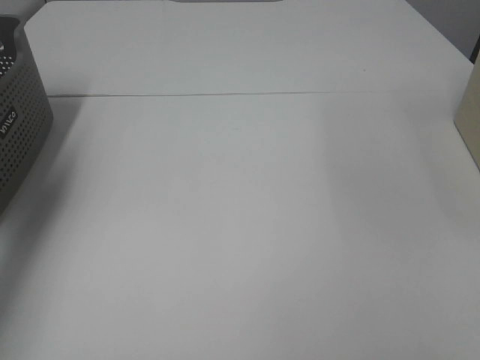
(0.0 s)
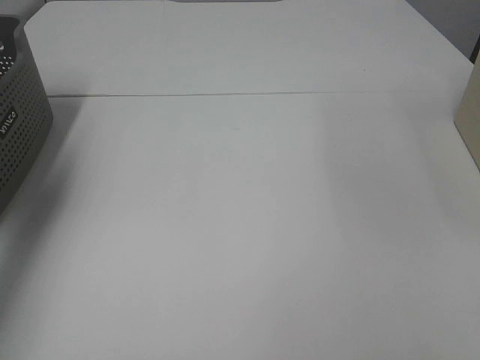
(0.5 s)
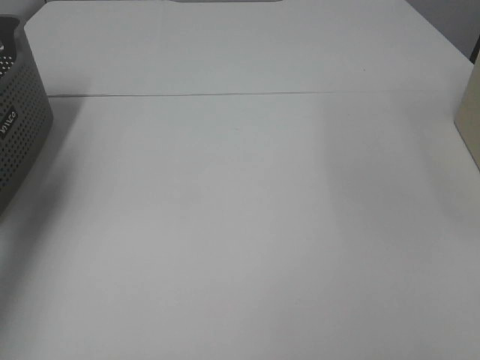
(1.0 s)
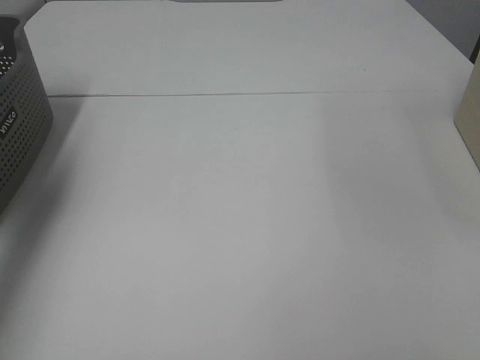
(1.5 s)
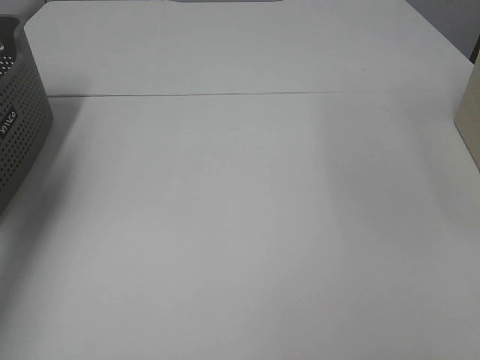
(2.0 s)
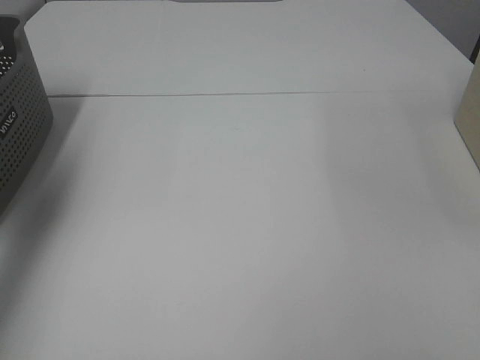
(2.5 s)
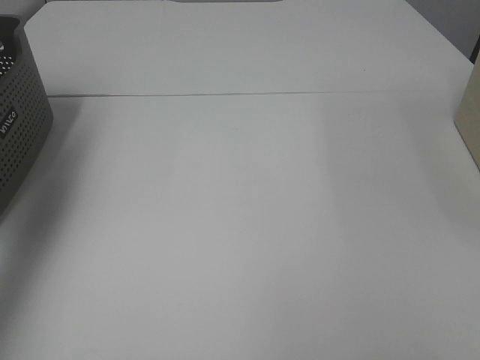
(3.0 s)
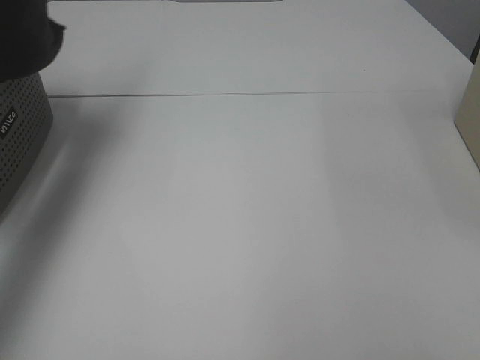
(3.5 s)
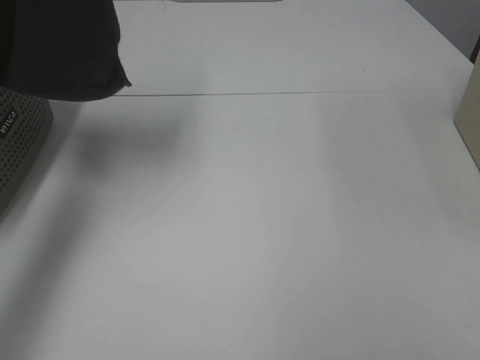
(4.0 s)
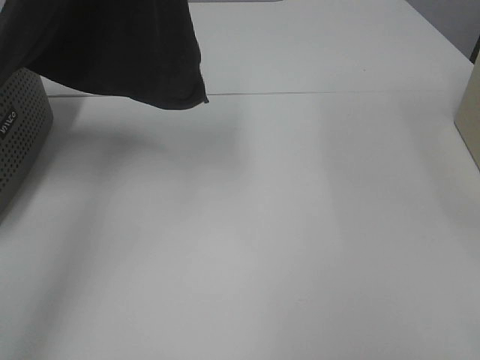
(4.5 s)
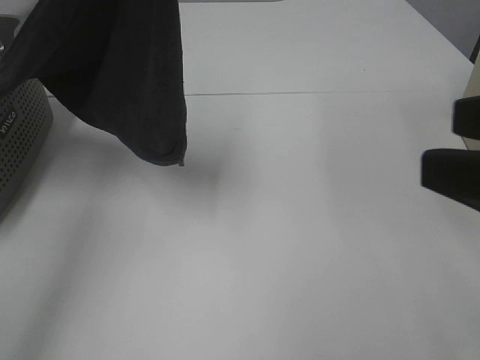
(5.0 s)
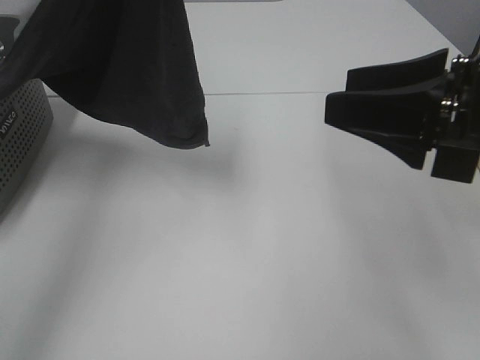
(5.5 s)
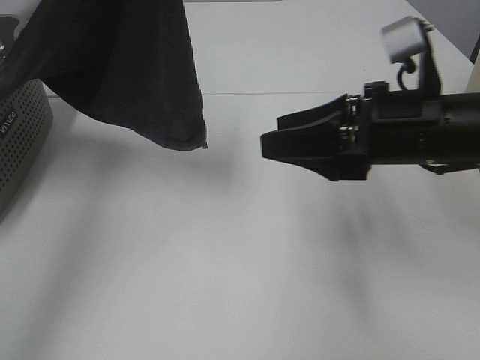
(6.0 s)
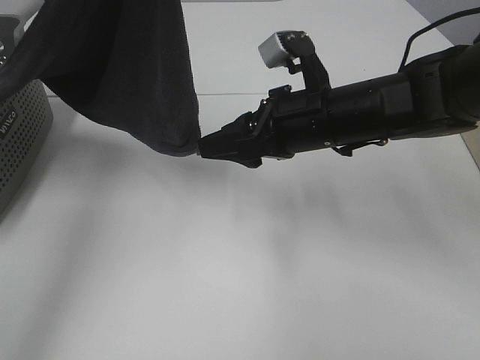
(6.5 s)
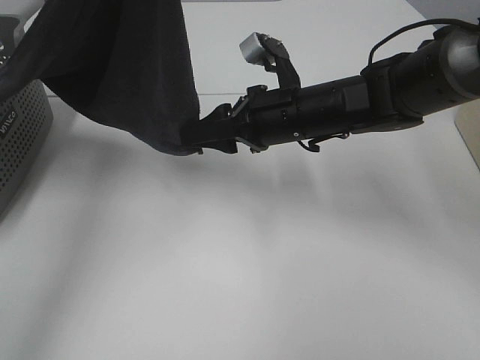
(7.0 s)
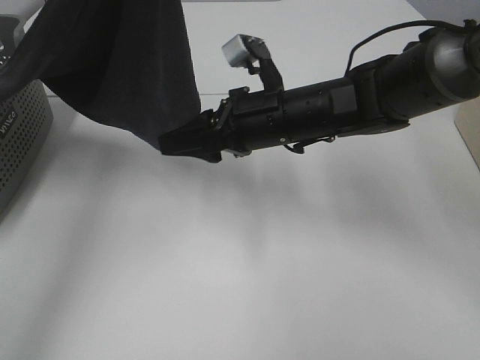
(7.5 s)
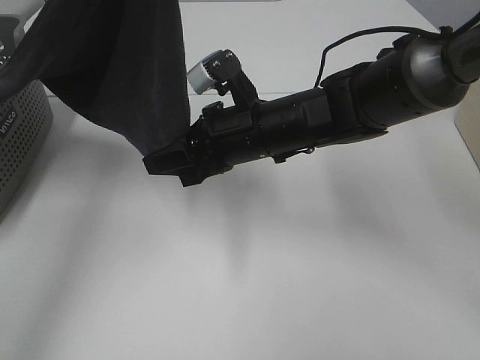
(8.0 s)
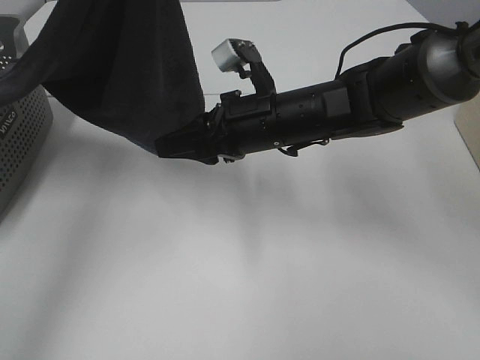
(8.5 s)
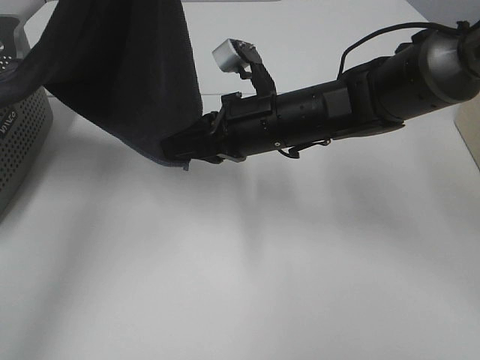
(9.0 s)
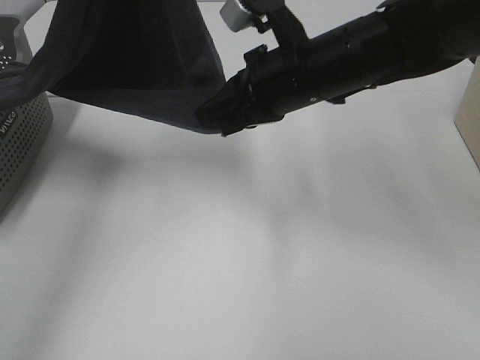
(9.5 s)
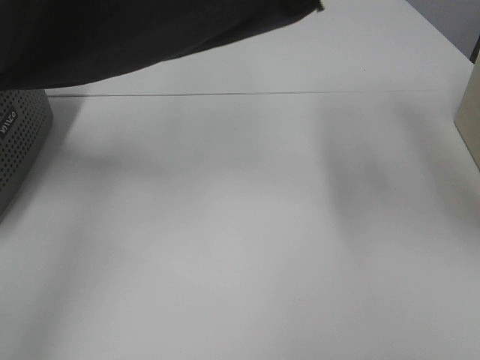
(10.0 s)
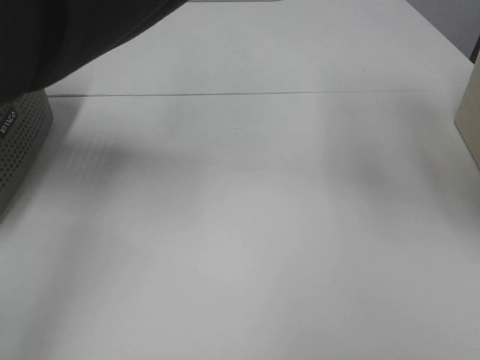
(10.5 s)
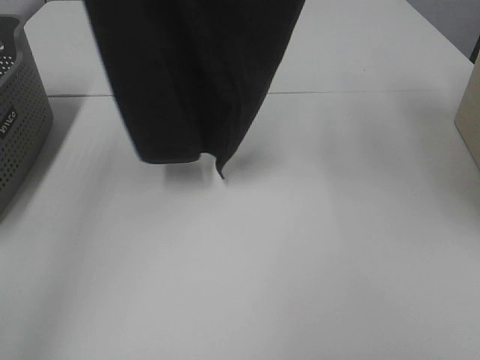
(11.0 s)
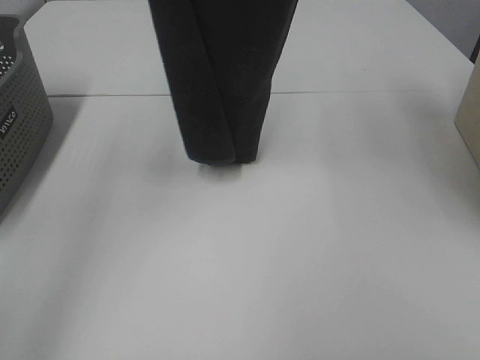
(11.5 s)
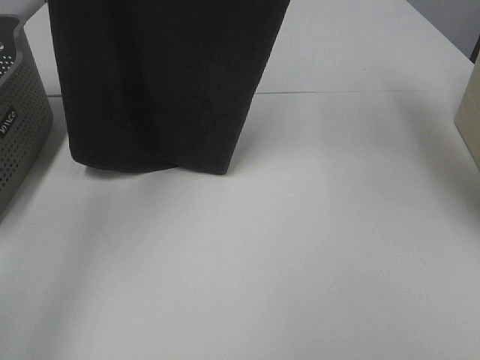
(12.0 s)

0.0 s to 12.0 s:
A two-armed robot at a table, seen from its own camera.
Task of the whole recording: Remove the towel and place it.
Step, 3.5 to 9.5 s: Right hand: grab a corner of the grey towel and straighten it.
2.0 to 4.0 s: The left gripper heads upward and to the right, covering some 25 cm.
4.0 to 6.0 s: The left gripper travels to the right by about 5 cm. Meanwhile the right gripper shifts roughly 30 cm forward and to the left.
6.0 to 8.0 s: The right gripper heads to the left and forward, covering some 15 cm.
8.0 to 10.0 s: The right gripper shifts about 25 cm upward, and closes, while the left gripper travels upward by approximately 10 cm.
10.0 to 12.0 s: The right gripper heads upward, covering about 15 cm; the left gripper moves forward, some 5 cm.

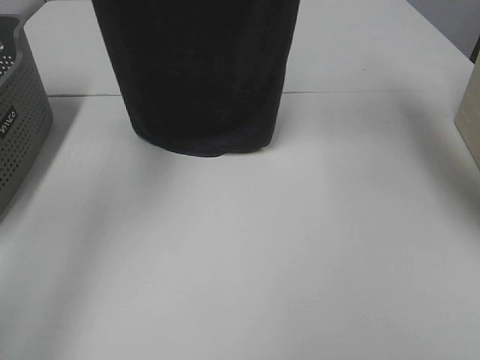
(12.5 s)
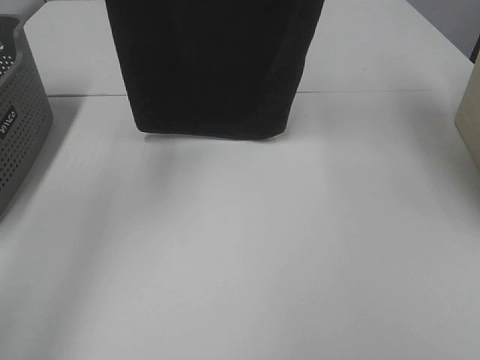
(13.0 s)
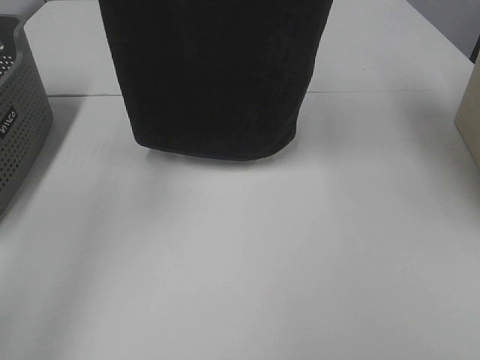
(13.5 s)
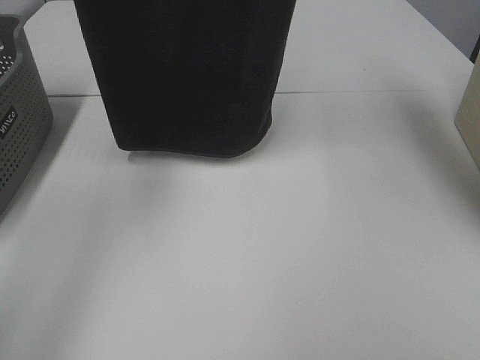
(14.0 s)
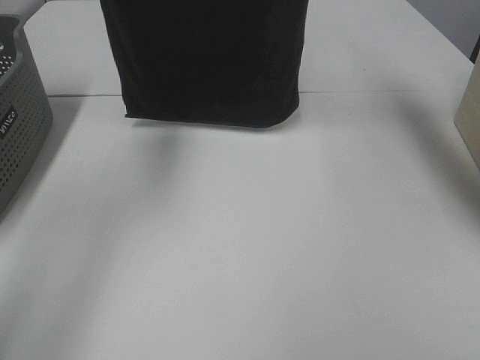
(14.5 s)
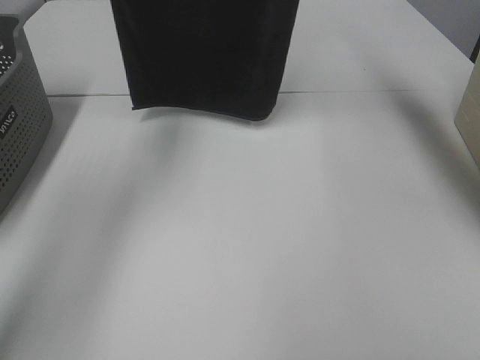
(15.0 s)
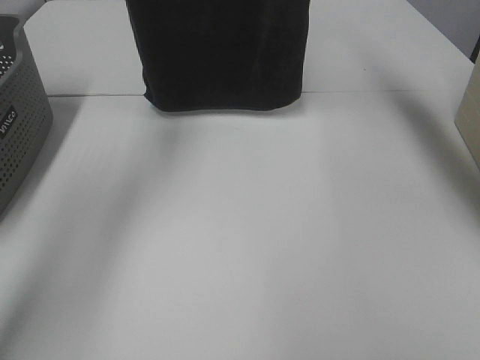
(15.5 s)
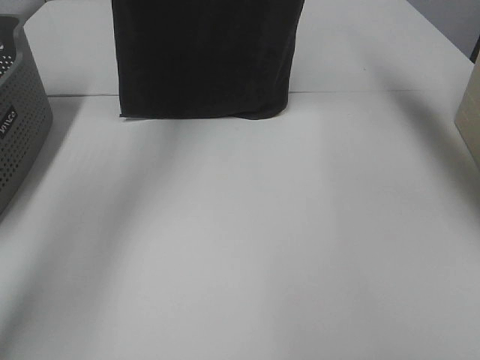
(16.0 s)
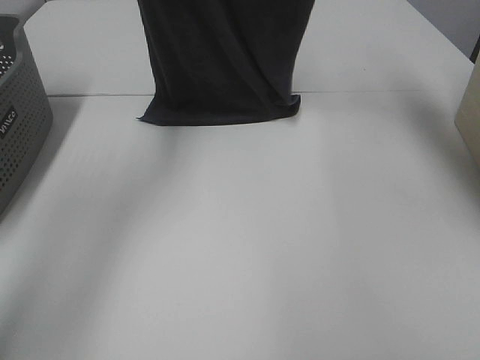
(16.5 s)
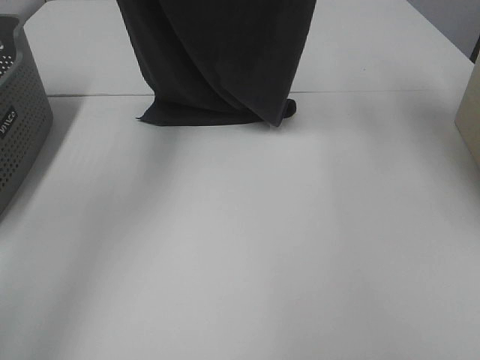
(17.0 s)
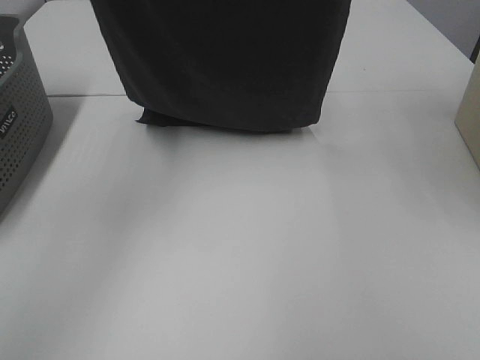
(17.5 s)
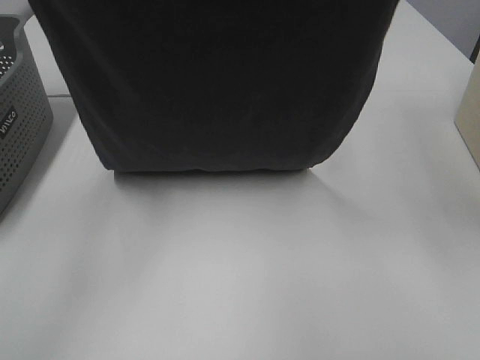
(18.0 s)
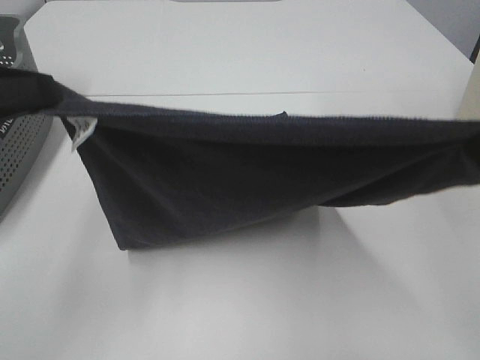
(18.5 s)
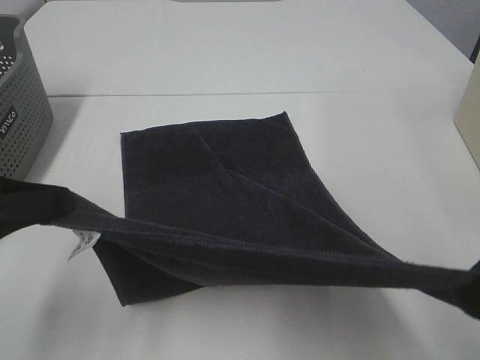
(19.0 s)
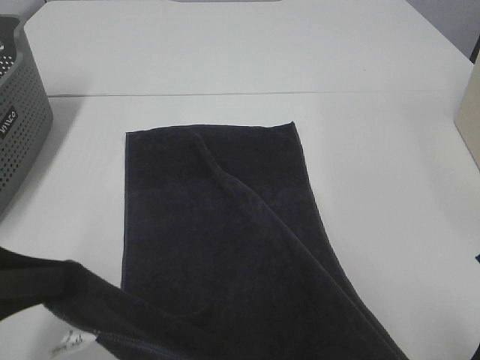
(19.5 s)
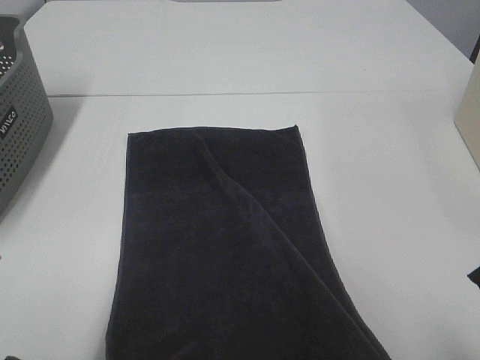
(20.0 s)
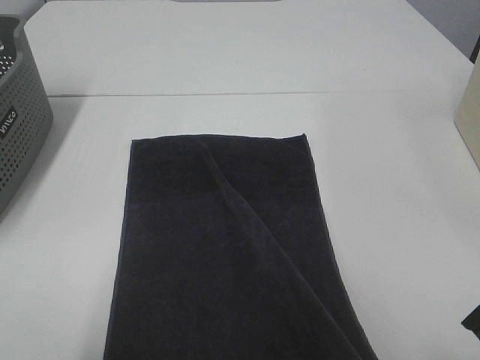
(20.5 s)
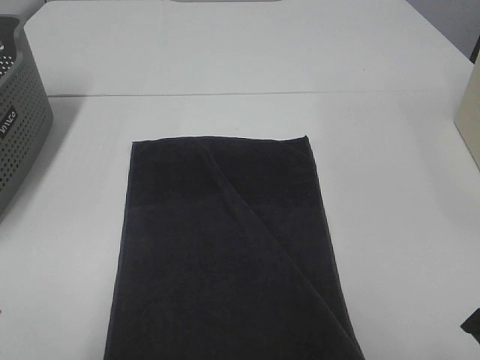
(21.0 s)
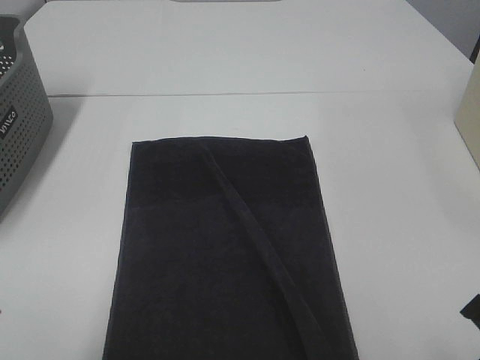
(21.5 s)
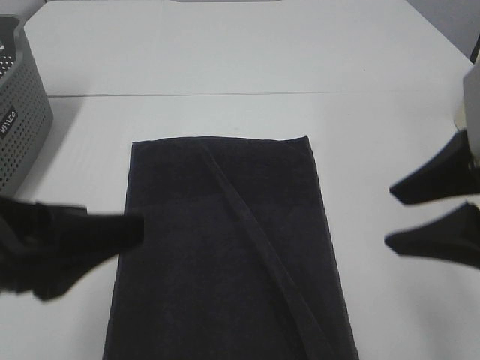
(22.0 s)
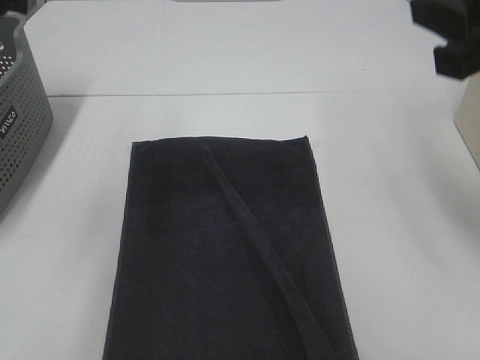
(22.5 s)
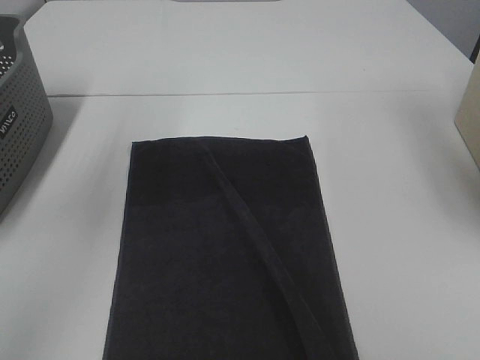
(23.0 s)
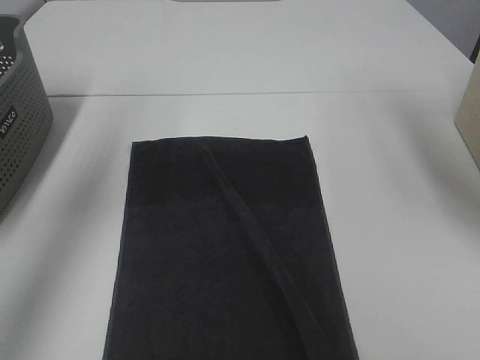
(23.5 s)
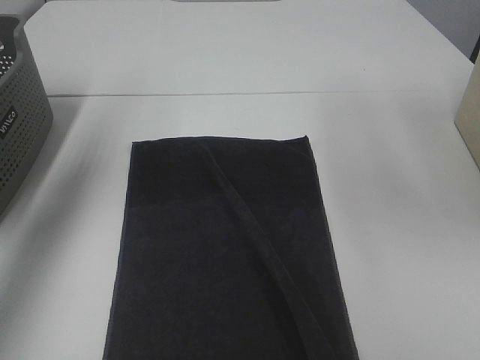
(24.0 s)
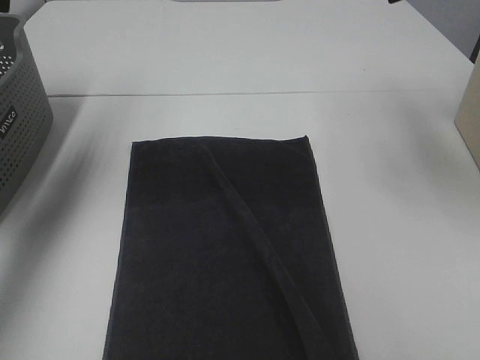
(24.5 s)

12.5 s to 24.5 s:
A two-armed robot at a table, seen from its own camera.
Task of the whole recording: Remove the towel and place it.
Step, 12.5 to 15.5 s: Left hand: spread the grey towel flat on the table.
Step, 12.5 to 15.5 s: Right hand: spread the grey towel flat on the table.
14.5 to 16.5 s: The right gripper travels downward and forward by about 10 cm, while the left gripper travels downward by about 5 cm.
16.5 to 18.5 s: The right gripper heads backward, covering roughly 30 cm. The left gripper goes some 35 cm backward and downward.
18.5 to 20.5 s: The left gripper travels backward and downward by roughly 15 cm. Meanwhile the right gripper goes roughly 15 cm downward and backward.
20.5 to 22.5 s: Both grippers travel together upward and forward, about 20 cm. The left gripper opens. The right gripper opens its fingers.
22.5 to 24.5 s: The right gripper shifts roughly 20 cm forward; the left gripper goes roughly 20 cm forward and to the left.

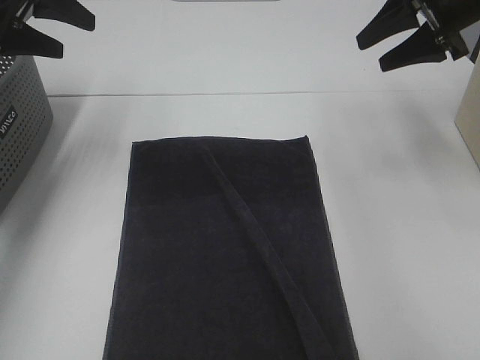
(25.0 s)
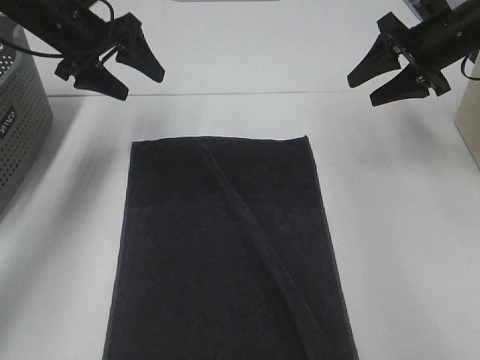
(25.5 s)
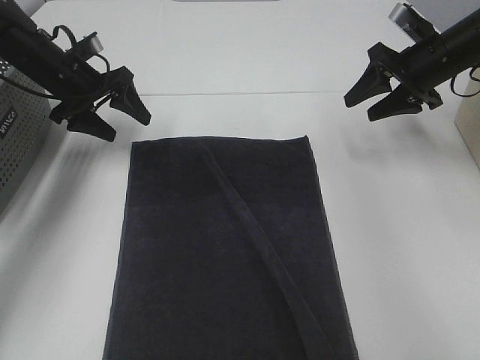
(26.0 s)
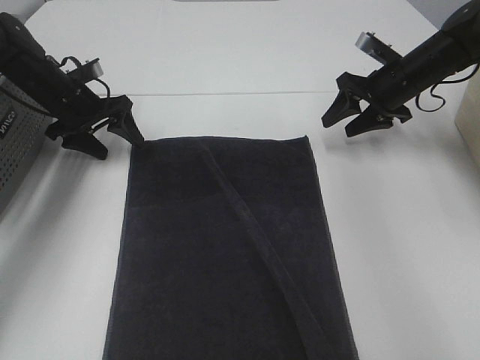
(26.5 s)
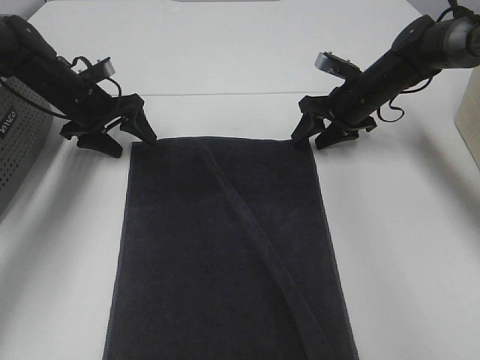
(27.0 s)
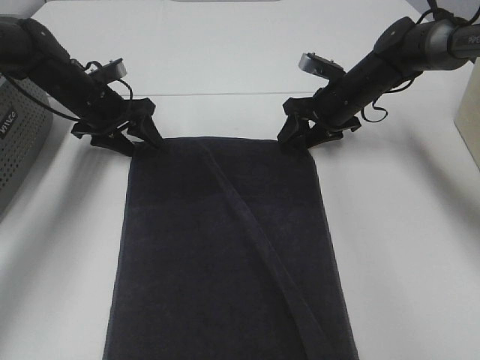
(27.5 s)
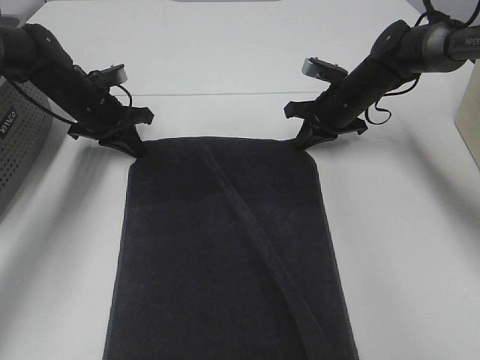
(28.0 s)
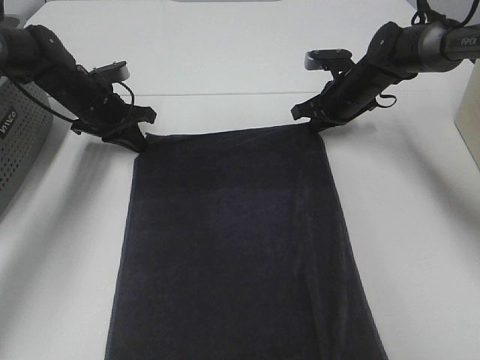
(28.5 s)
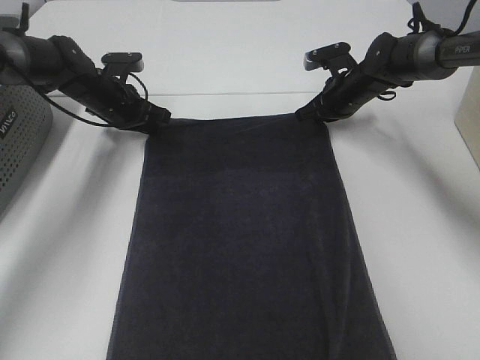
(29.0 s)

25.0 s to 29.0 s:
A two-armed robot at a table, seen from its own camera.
Task of the whole recording: Remove the towel and place it.
25.0 to 27.0 s: The left gripper goes roughly 20 cm downward. The right gripper moves downward, to the left and forward, some 20 cm.
27.0 to 29.0 s: The right gripper closes up. Meanwhile the left gripper closes its fingers.
